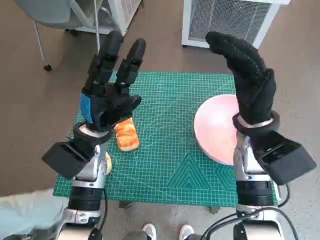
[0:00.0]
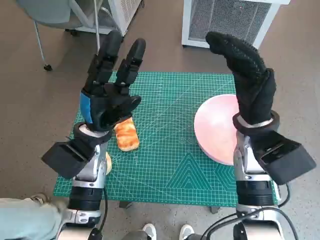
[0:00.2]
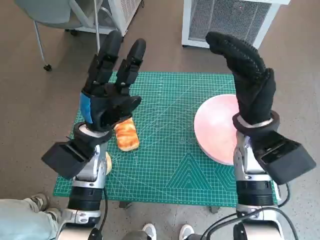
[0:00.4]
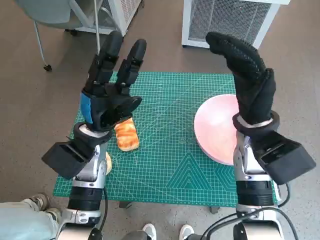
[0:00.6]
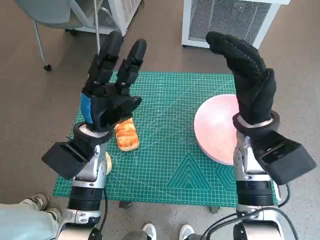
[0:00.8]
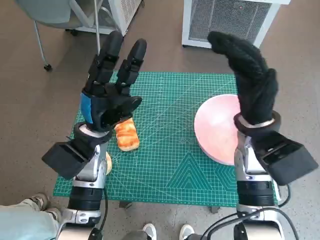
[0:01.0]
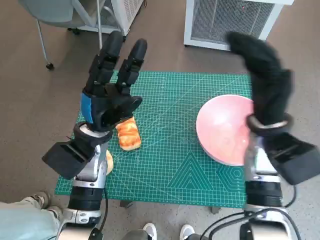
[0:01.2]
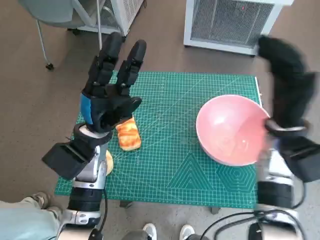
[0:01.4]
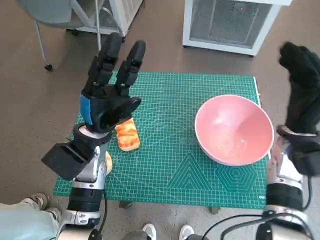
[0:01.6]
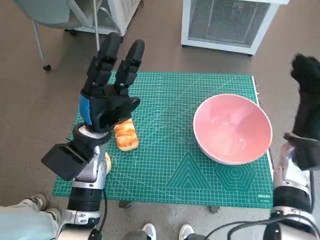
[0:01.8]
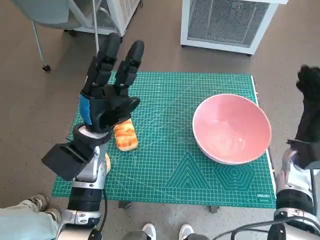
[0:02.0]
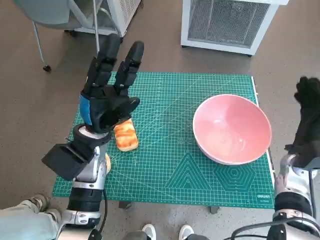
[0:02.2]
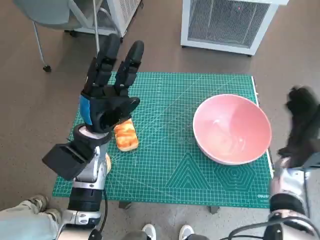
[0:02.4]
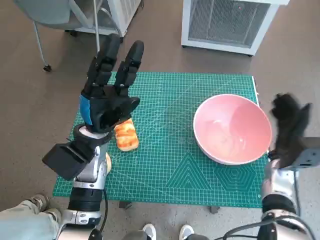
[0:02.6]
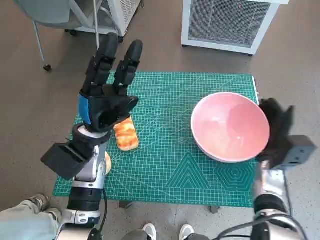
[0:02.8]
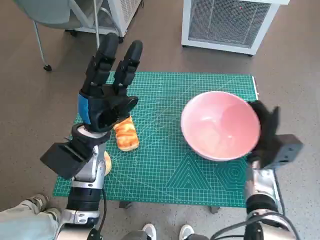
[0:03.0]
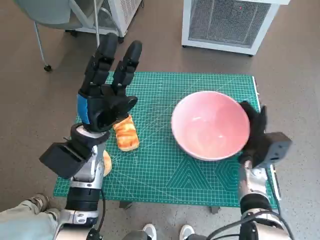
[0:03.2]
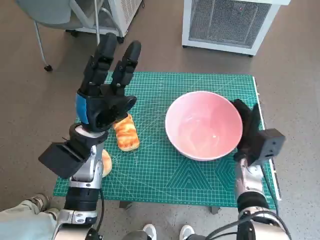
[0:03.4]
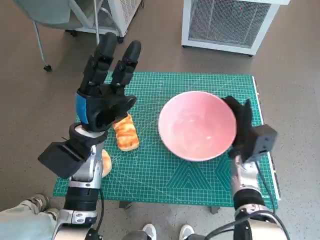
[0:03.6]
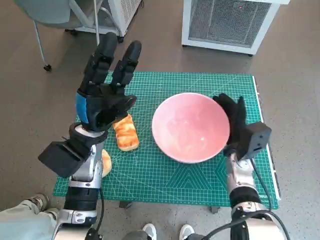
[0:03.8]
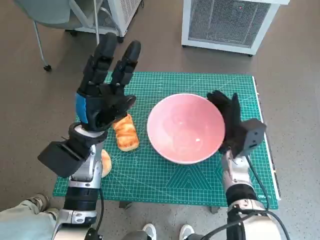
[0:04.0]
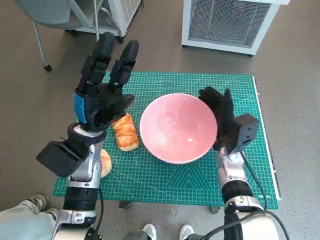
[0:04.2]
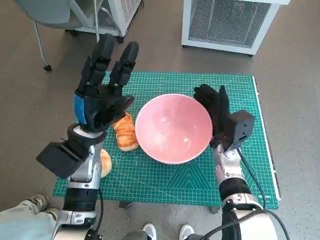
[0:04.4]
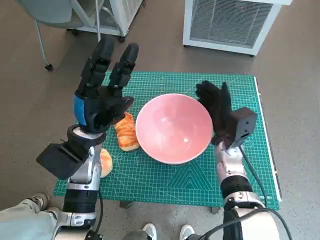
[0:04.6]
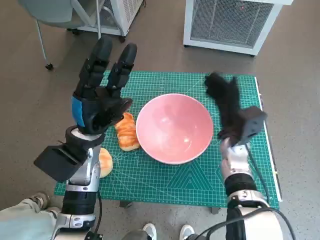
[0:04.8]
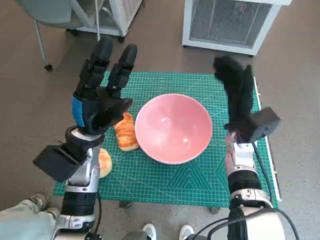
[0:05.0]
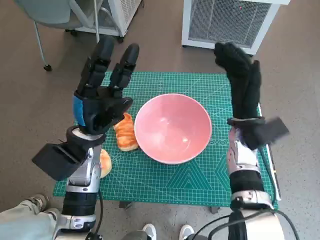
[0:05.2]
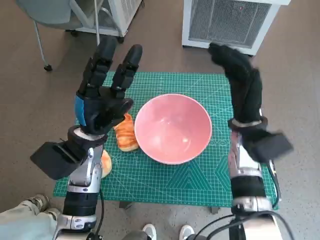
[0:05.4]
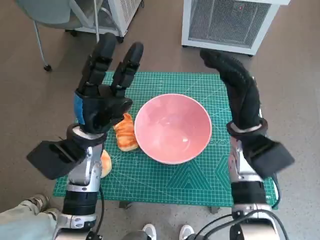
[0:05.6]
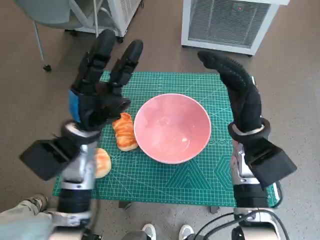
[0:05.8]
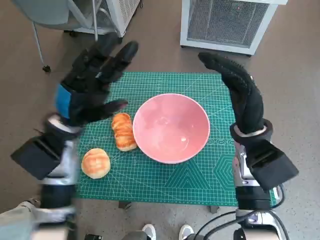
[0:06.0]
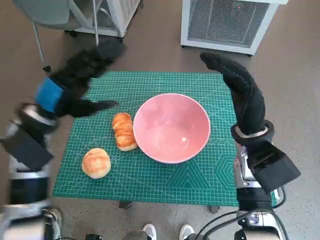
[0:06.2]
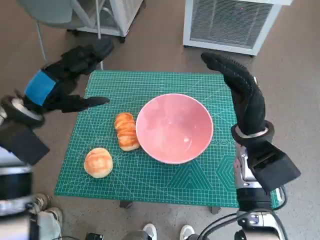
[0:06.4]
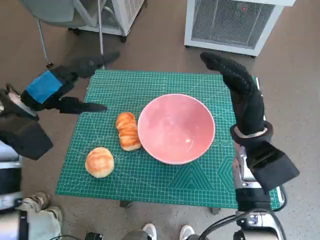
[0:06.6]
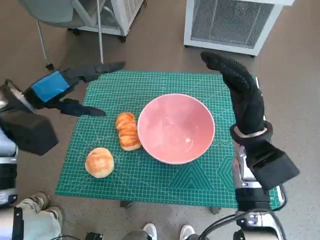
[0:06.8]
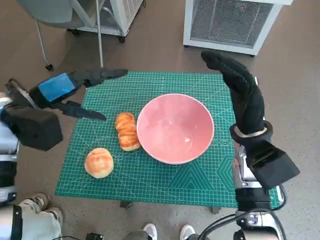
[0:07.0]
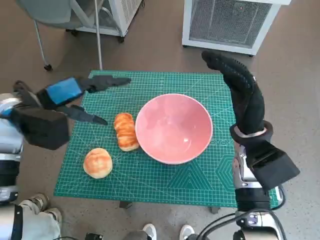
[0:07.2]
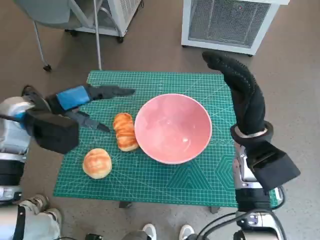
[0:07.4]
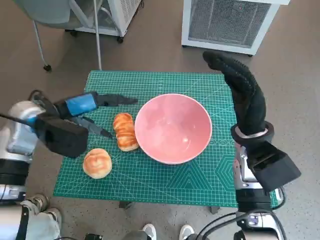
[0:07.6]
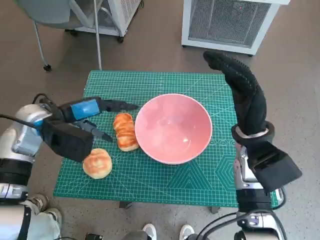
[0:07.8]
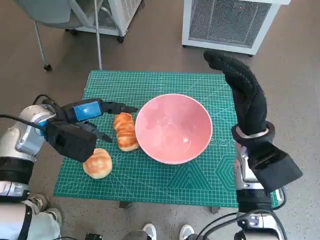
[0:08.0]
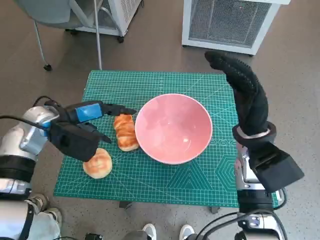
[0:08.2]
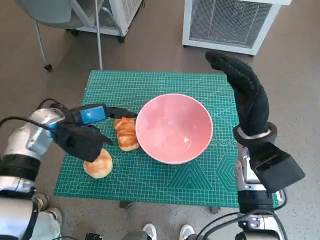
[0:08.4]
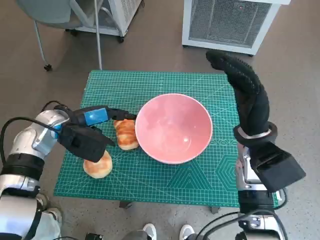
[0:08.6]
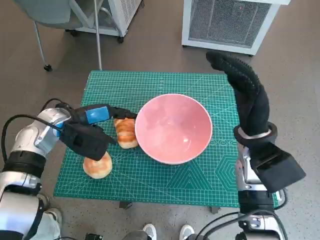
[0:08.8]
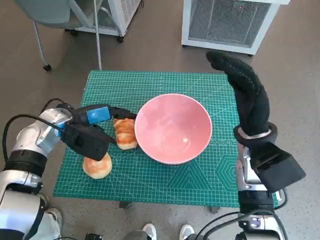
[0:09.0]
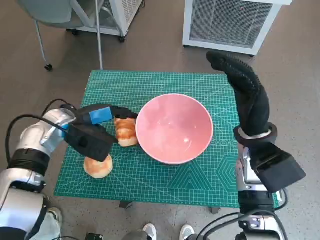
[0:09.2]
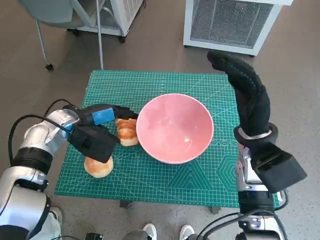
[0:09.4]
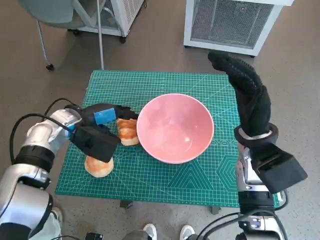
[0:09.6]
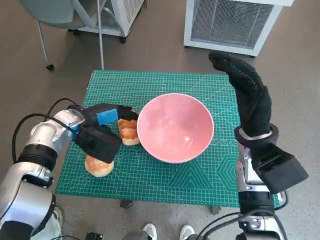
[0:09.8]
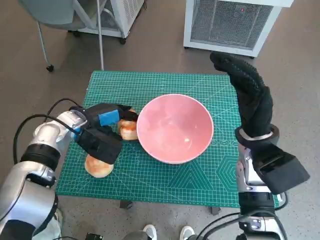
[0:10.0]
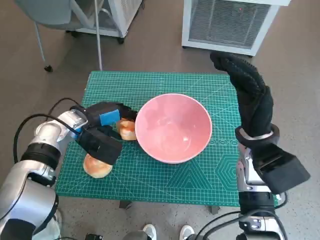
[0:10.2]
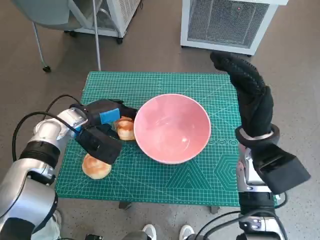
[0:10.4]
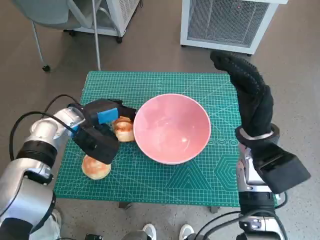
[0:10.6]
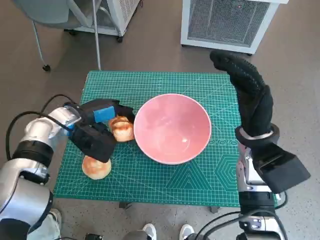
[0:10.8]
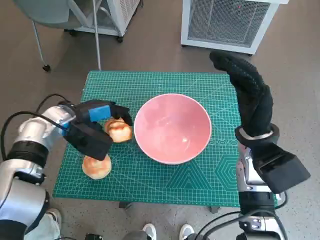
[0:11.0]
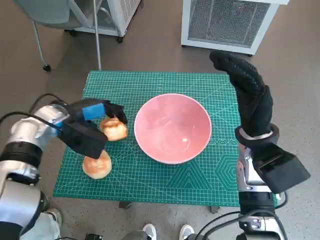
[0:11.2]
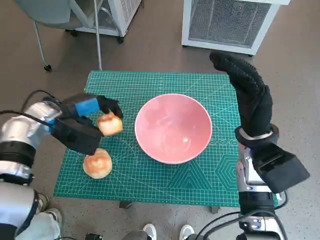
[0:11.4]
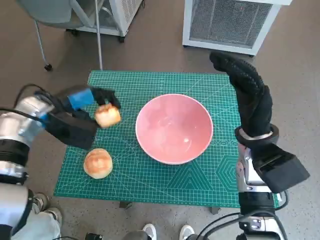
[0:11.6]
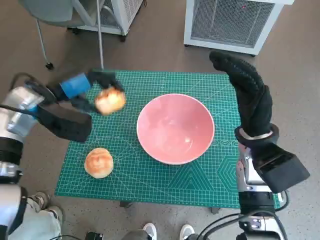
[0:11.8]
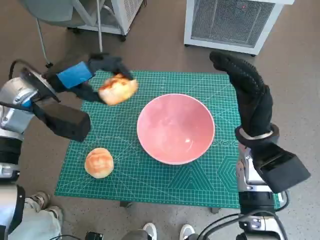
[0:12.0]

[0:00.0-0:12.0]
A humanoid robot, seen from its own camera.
Task of the whole recording: Push the bowl to the center of the table and put the bread into the bowl.
Step, 0:00.0 to 0:04.8: Move the pink bowl to the center of table with right hand.
Step, 0:05.0 to 0:10.2: Grasp the long bread with left hand.
0:01.6 to 0:03.0: The right hand moves downward, some 10 cm.
0:03.0 to 0:04.4: The right hand travels to the left by approximately 10 cm.
0:04.4 to 0:06.0: The right hand shifts roughly 10 cm upward.
0:06.0 to 0:07.6: The left hand travels to the left by some 5 cm.
0:07.6 to 0:09.0: The left hand changes place by roughly 5 cm.
0:09.0 to 0:10.4: The hands stay close to where they were, moving slightly.
0:10.4 to 0:12.0: The left hand shifts about 10 cm upward.

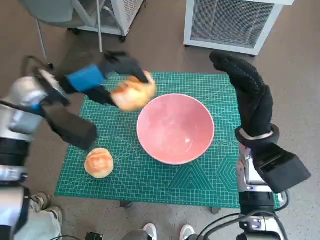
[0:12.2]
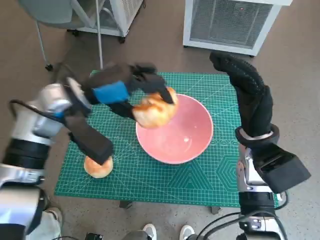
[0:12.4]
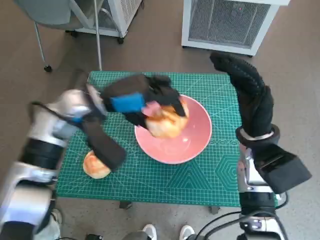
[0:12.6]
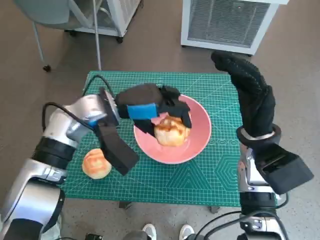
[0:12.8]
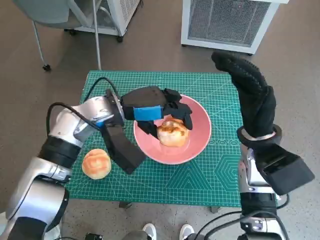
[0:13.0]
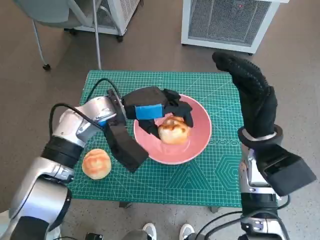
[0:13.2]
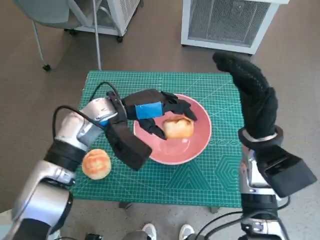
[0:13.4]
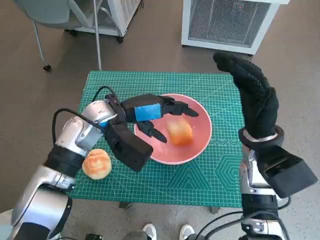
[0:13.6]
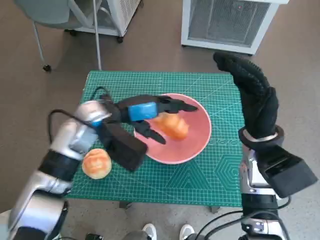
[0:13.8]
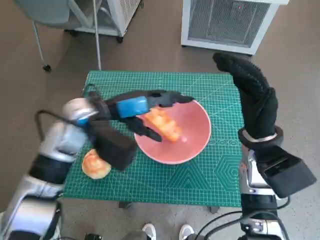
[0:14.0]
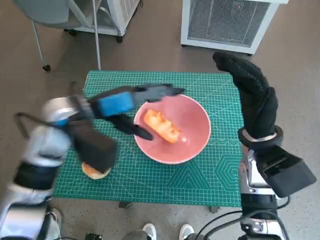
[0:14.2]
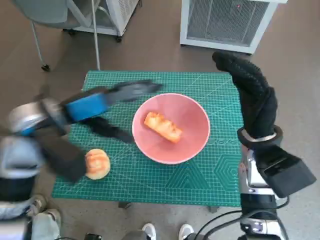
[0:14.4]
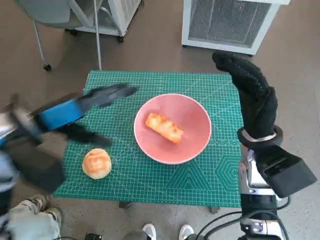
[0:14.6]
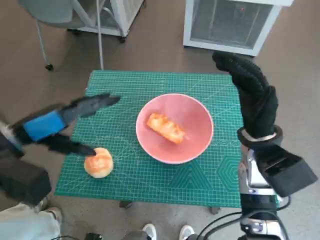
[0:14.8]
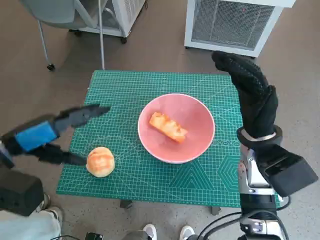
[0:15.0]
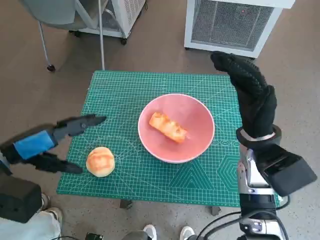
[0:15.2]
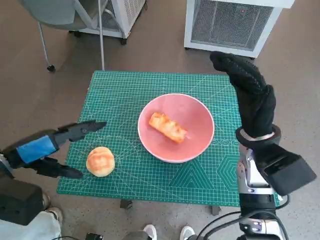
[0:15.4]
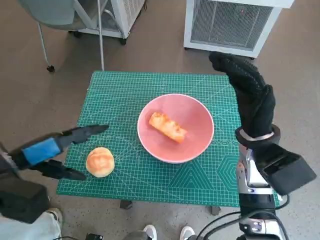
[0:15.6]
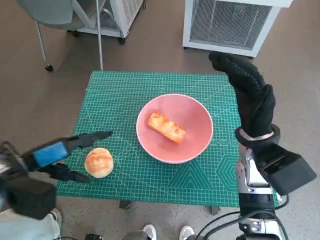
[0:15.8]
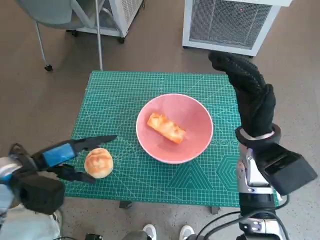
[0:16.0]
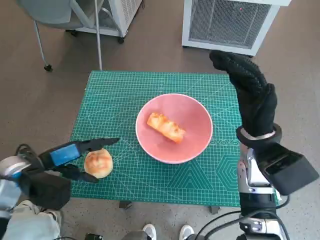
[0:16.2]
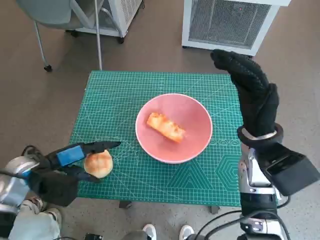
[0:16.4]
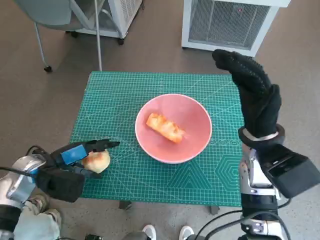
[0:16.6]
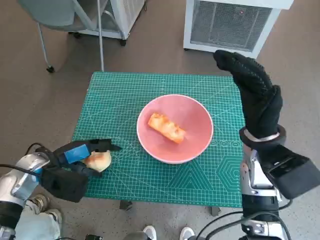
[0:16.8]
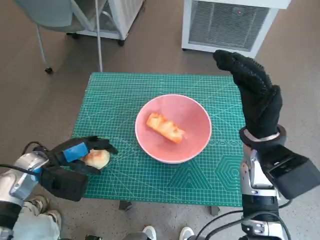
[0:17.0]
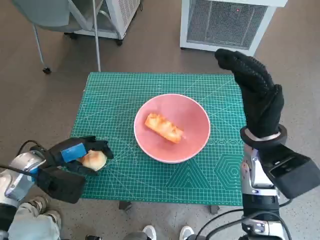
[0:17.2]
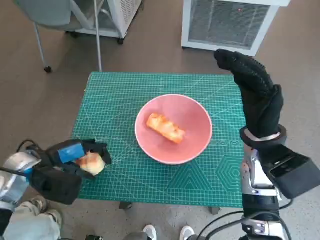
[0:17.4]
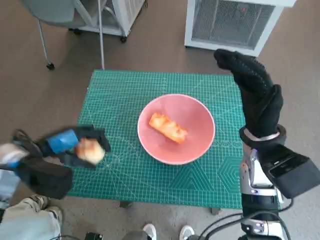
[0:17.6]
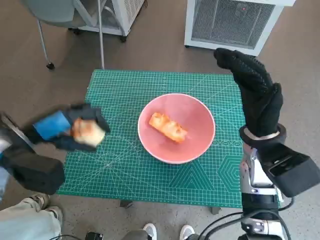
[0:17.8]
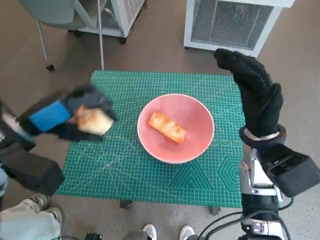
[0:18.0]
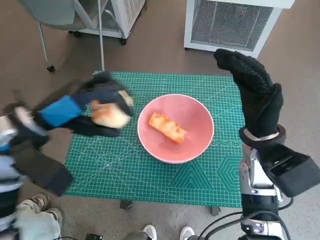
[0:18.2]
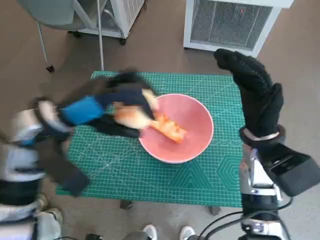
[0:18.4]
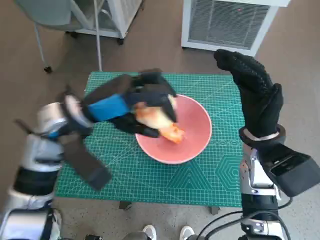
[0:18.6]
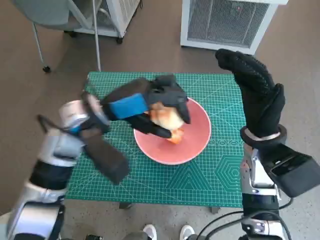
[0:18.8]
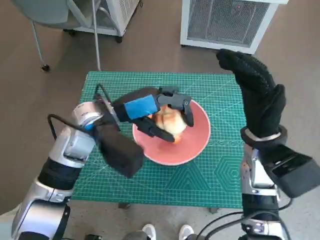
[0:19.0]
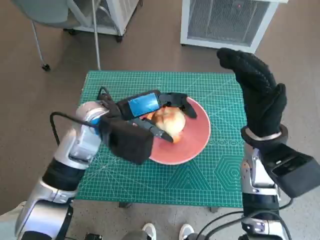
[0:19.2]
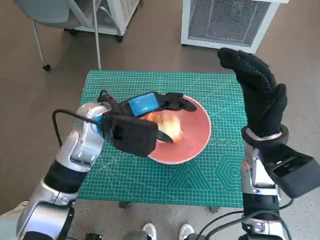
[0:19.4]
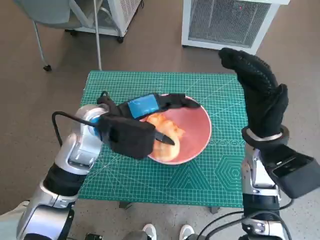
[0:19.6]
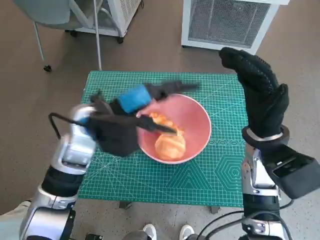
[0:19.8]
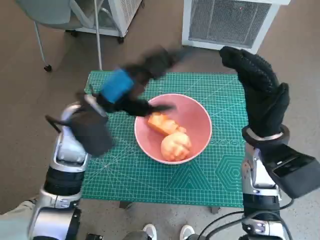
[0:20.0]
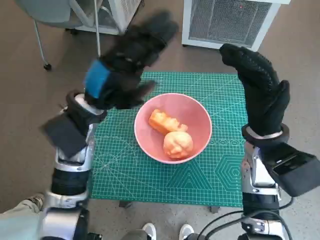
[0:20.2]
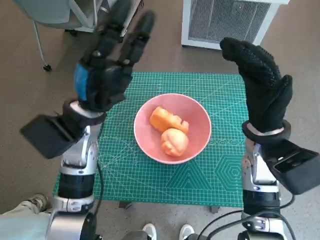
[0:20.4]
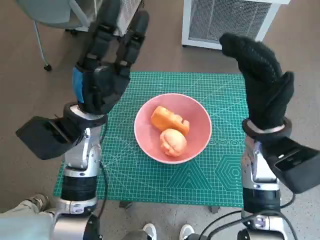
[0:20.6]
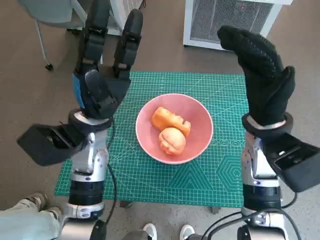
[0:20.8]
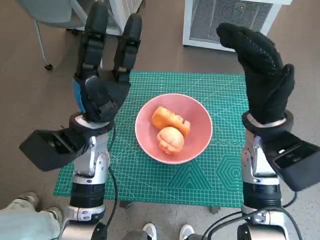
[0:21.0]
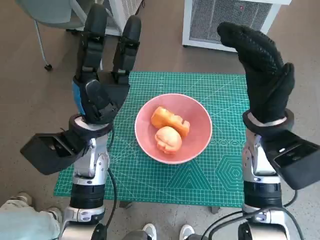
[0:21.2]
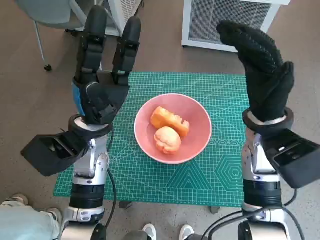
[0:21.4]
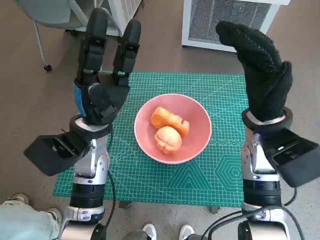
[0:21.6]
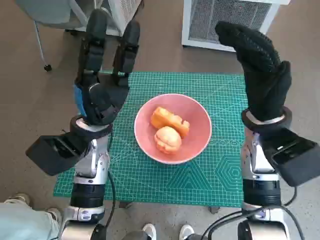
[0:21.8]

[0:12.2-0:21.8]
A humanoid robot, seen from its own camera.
Task of the whole recording: Push the bowl to the center of the table and put the bread into the bowl.
Step, 0:14.2 to 0:17.0: Grasp the round bread with left hand.
Step, 0:17.2 to 0:19.6: Place the round bread in pink bowl with left hand.
0:12.2 to 0:13.8: The left hand moves to the right and downward, some 10 cm.
0:13.8 to 0:15.4: The left hand heads to the left and backward, covering approximately 20 cm.
0:15.4 to 0:17.0: The left hand heads downward, covering about 10 cm.
0:17.0 to 0:18.6: The left hand moves upward and to the right, roughly 20 cm.
0:20.2 to 0:21.8: The left hand goes approximately 5 cm downward.
